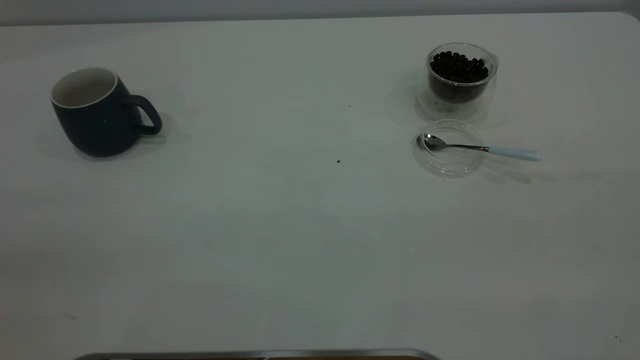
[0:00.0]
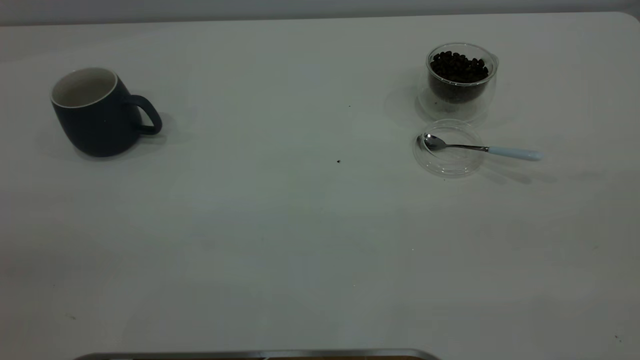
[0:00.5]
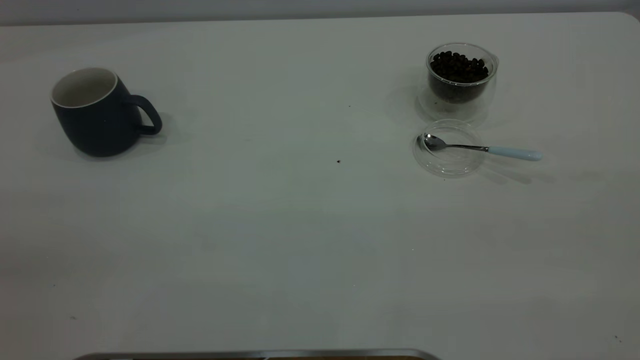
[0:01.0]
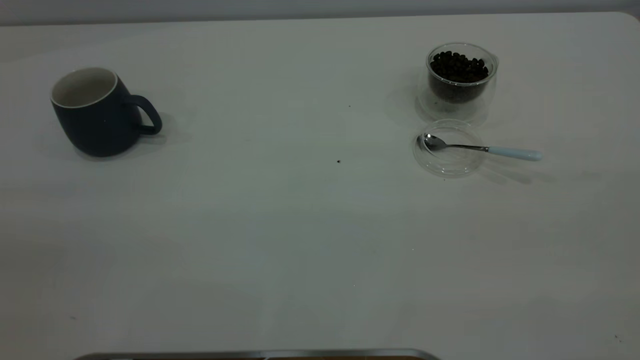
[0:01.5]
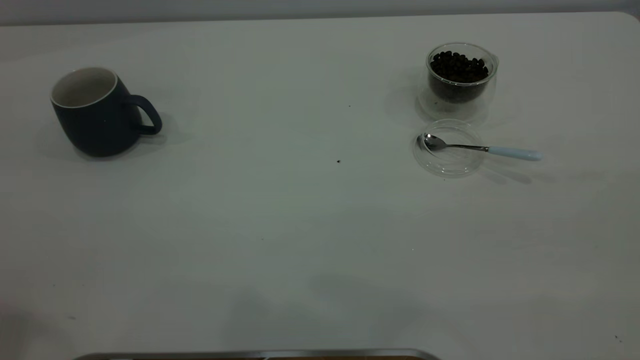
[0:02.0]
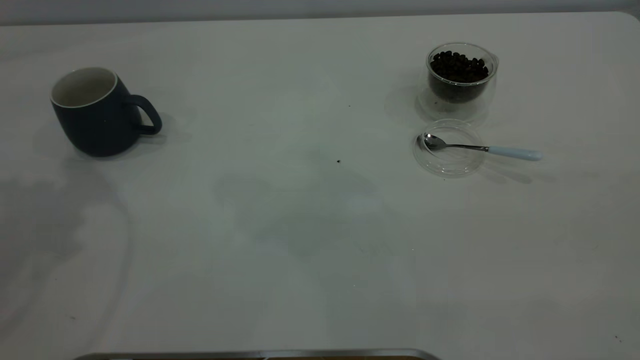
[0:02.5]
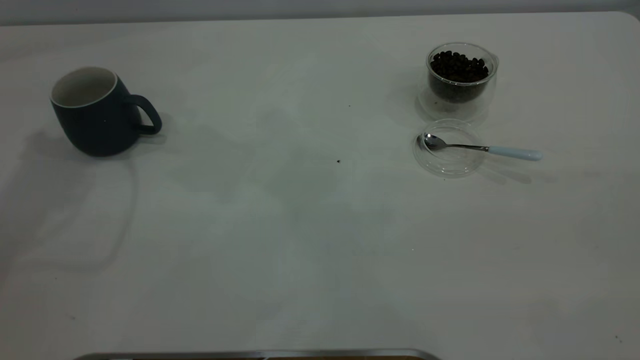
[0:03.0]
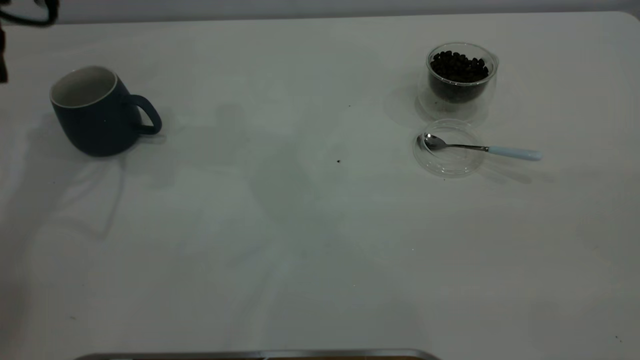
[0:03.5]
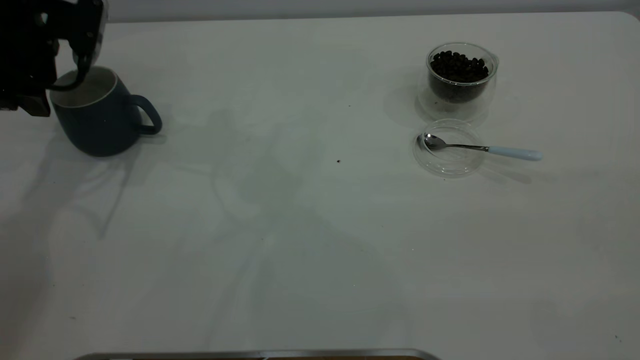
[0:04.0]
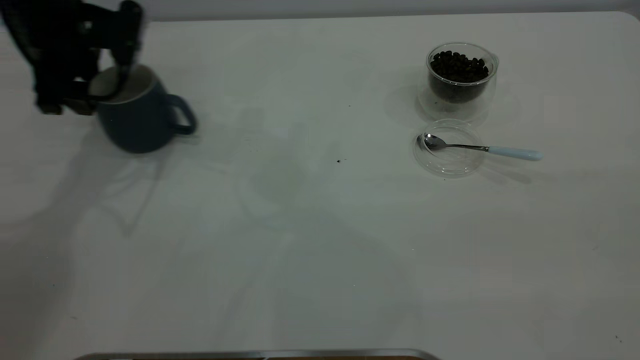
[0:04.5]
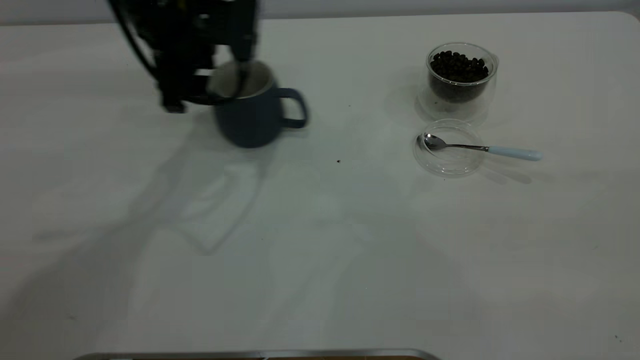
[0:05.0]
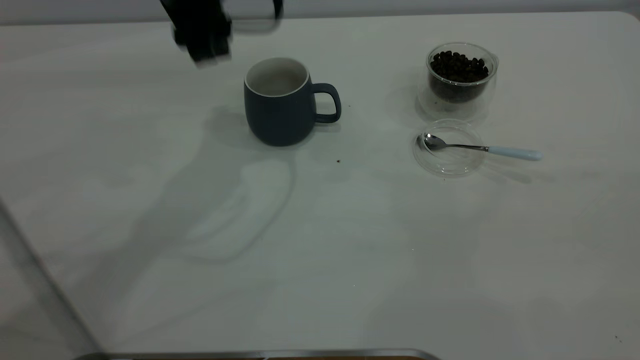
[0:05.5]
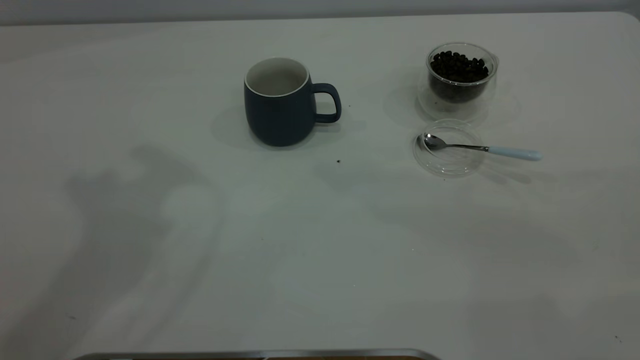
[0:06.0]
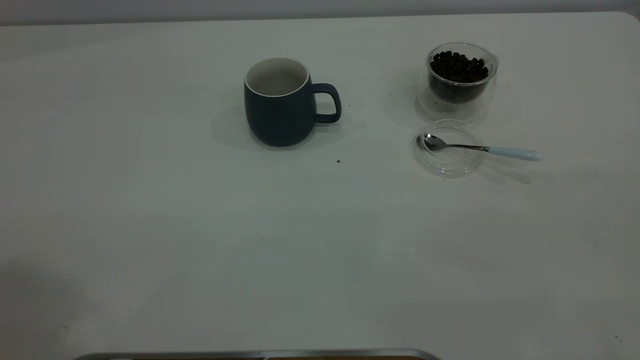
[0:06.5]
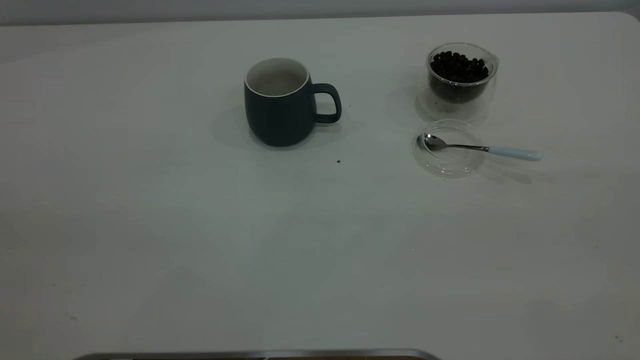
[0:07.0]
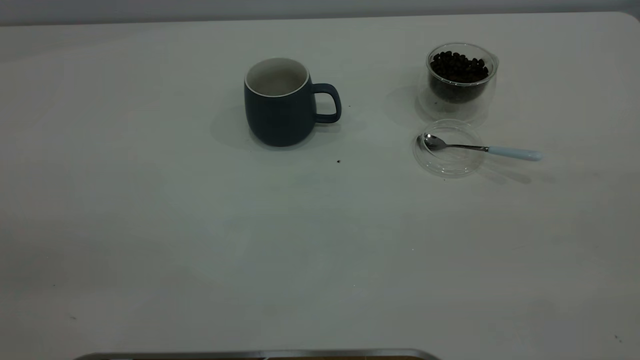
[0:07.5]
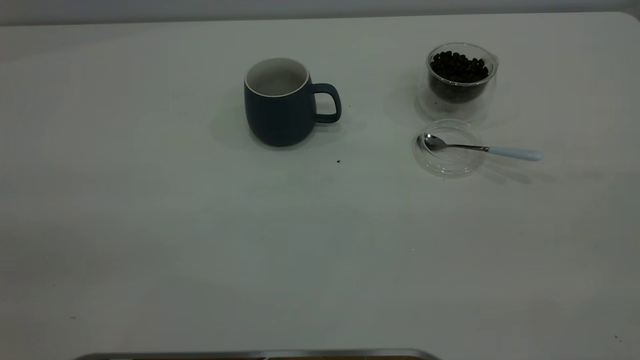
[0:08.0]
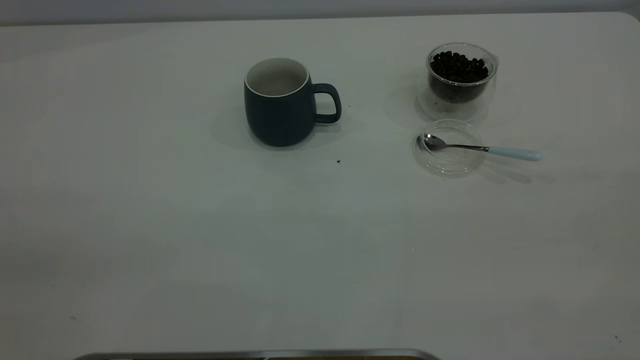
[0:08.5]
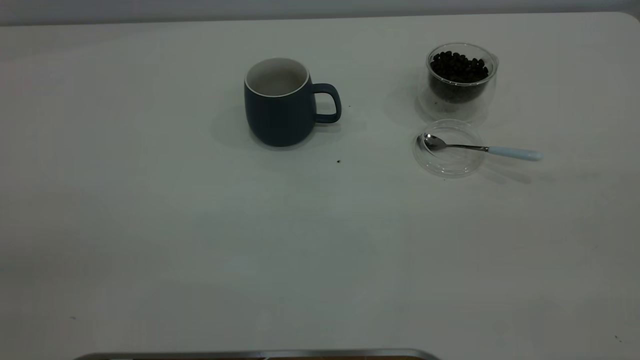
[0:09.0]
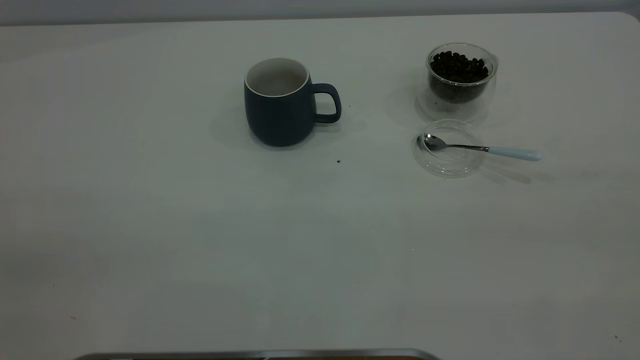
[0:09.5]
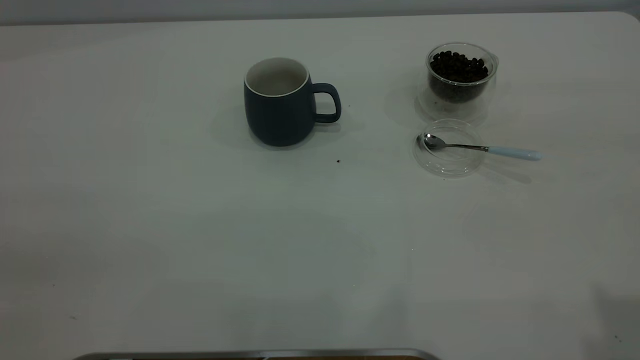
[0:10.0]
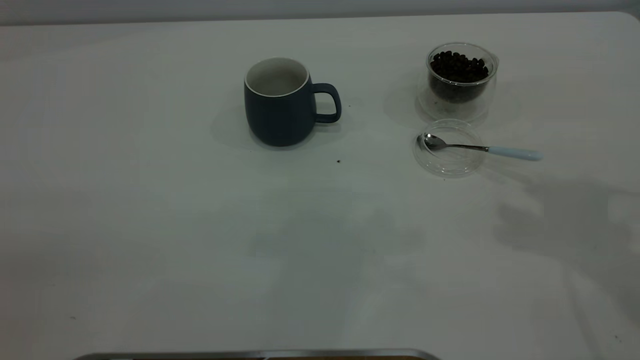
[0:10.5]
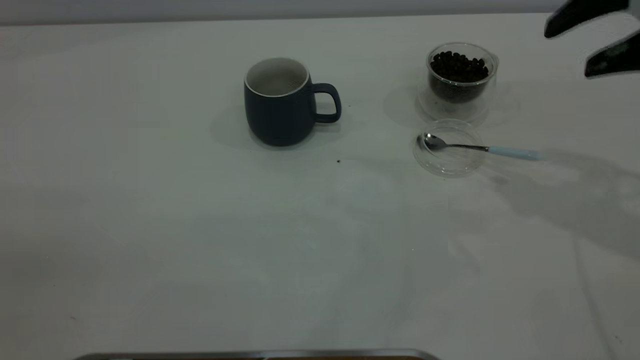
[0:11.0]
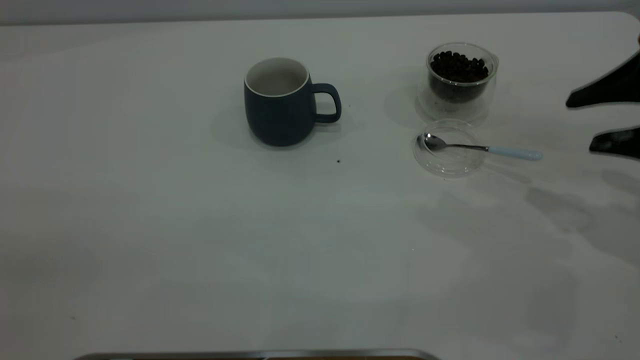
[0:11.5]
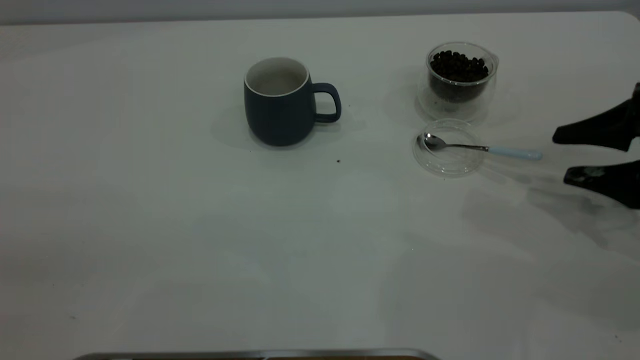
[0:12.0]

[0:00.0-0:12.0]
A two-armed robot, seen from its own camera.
Task of the whole recording: the left gripper place the grey cup in the center of the table, the right gripper take the blue spoon from the cup lid and scoop out the coffee beans from the coffee cup and put them into the grey cup, the right gripper put the spoon back into the cup lid.
Step, 0:00.0 to 0:05.0: Move the cup to the center of view.
0:02.0 to 0:04.0: The left gripper goes roughly 40 cm forward and downward.
0:04.0 to 0:06.0: The left gripper moves upward, backward and to the right, about 35 cm.
0:10.0 to 0:12.0: The right gripper moves downward and forward, roughly 35 cm.

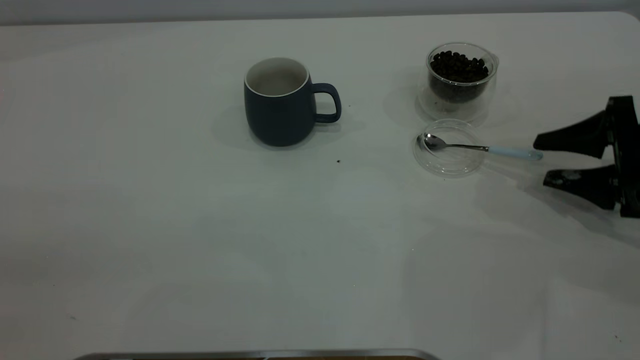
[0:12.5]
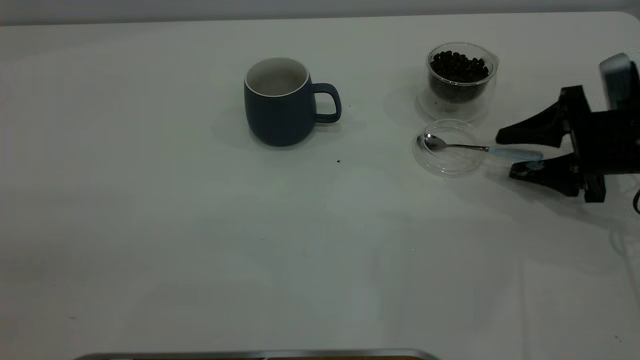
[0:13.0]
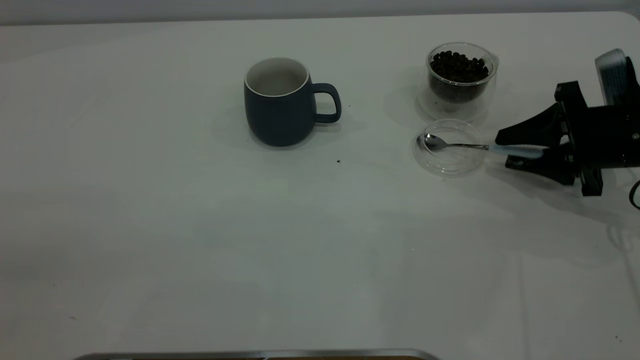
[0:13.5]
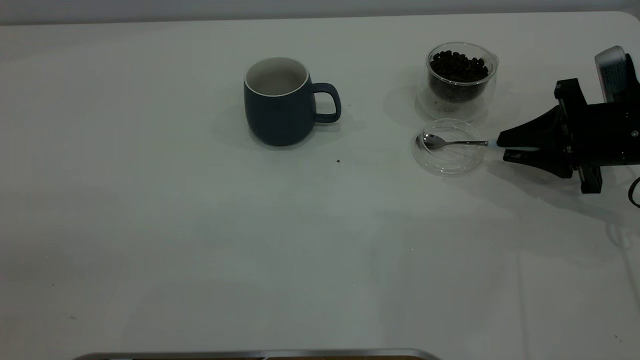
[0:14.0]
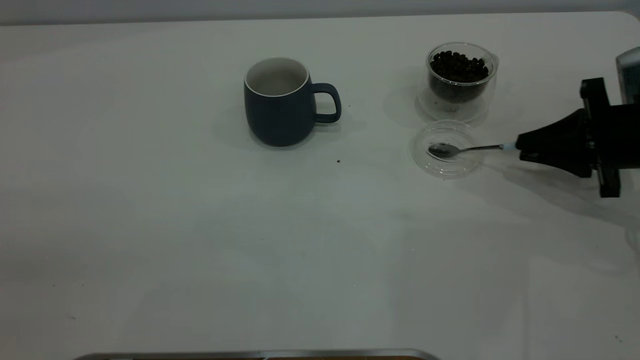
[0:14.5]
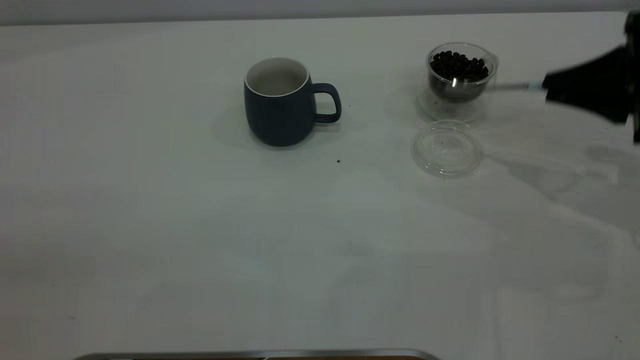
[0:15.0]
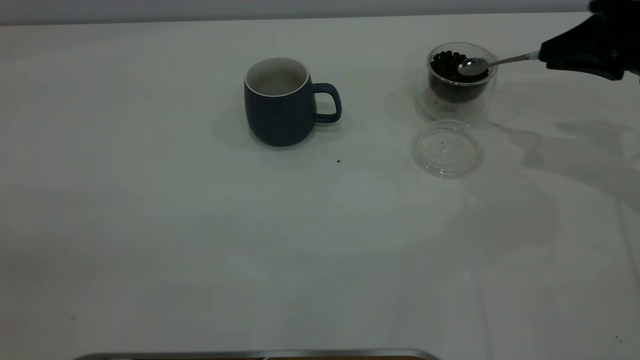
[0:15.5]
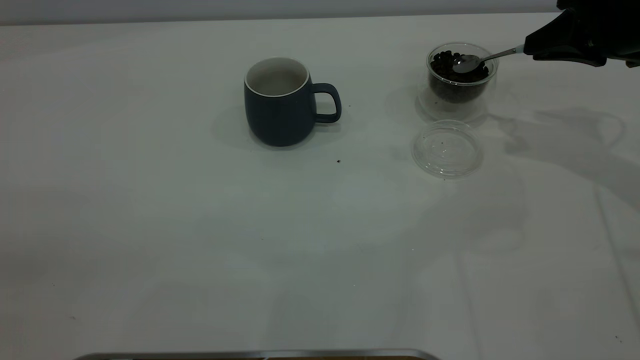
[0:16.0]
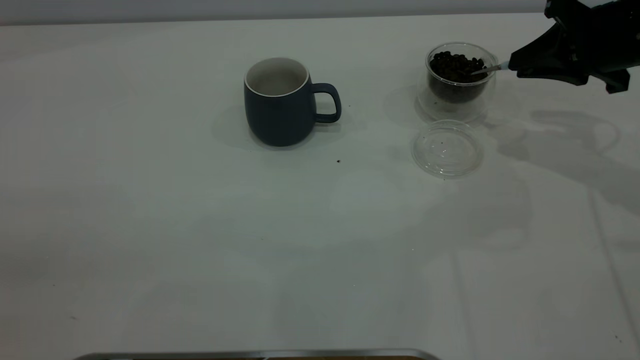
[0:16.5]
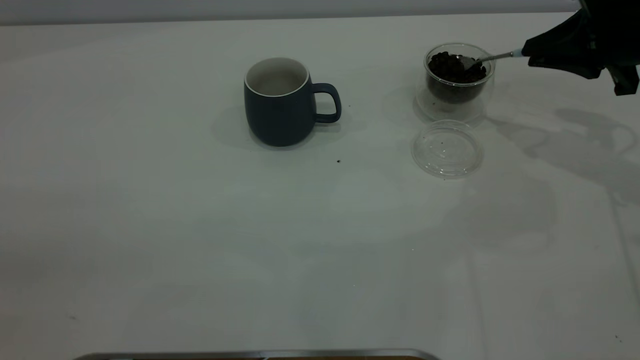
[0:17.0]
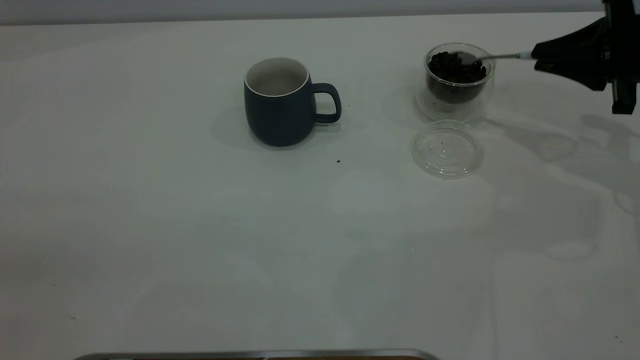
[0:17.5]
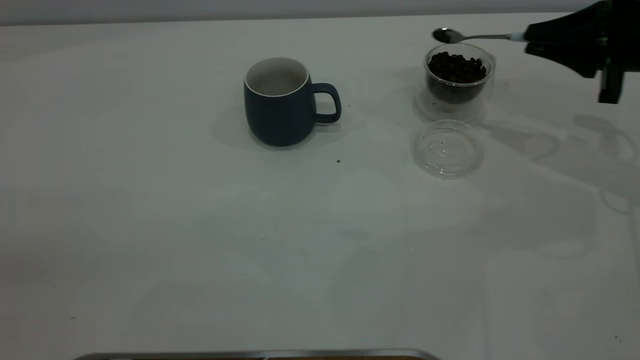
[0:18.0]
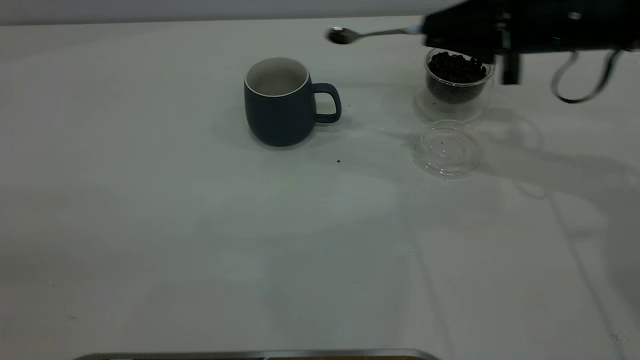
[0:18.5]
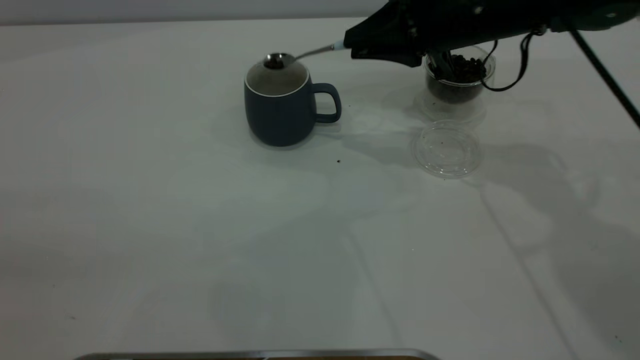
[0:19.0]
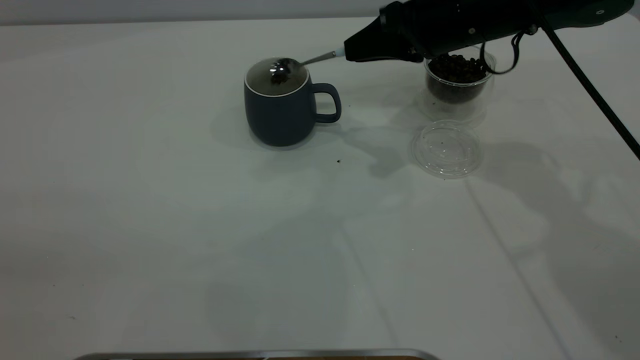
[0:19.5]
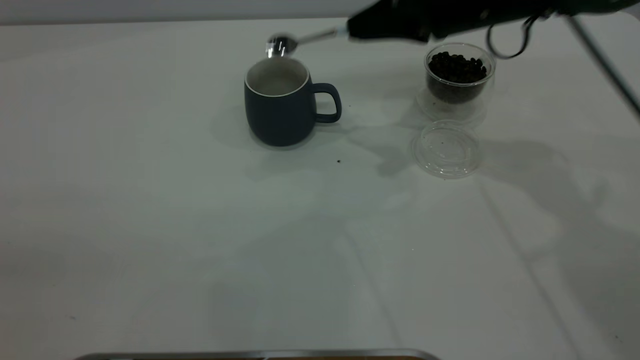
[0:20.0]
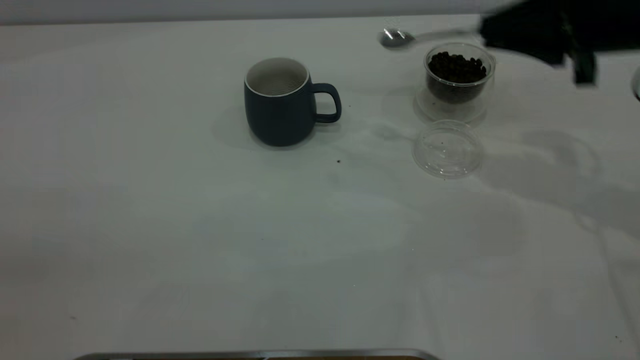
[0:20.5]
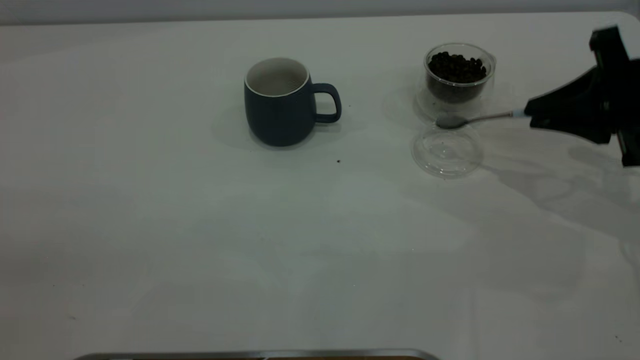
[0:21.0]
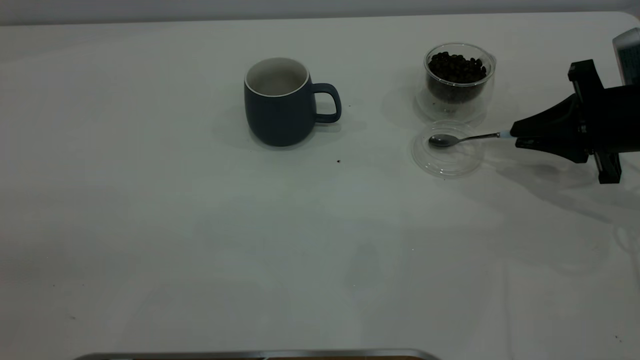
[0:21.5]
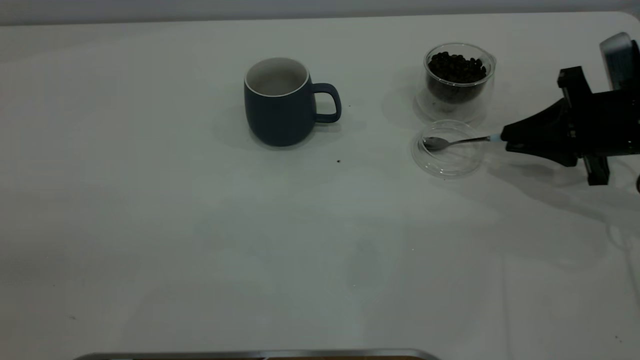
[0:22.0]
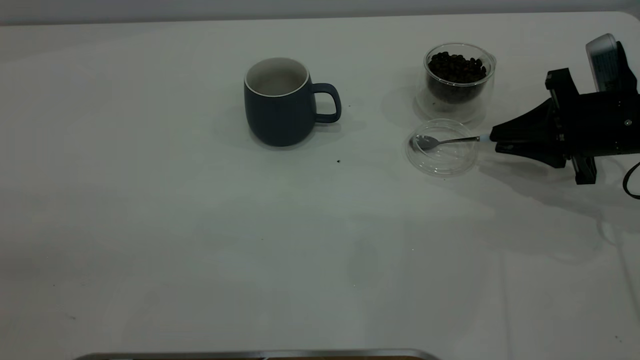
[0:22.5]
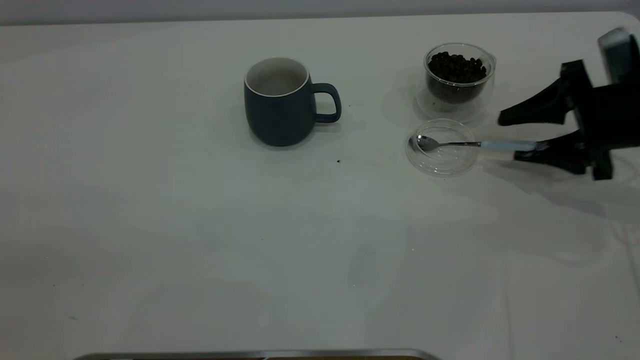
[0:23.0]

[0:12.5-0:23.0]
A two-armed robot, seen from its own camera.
Task of the whole recording: the left gripper place the grey cup in the center of the table, the right gripper take the blue spoon from the cup lid and scoop out the coffee beans from the coffee cup and put them into the grey cup, the right gripper put the spoon back into the cup lid.
Step, 0:12.5 to 0:14.5: Pick up the spoon.
Step, 0:15.0 to 0:20.0: Scoop a spoonful of beans into the cup.
0:12.5 to 0:14.5: The right gripper closes.
0:14.5 to 0:16.5: The right gripper heads upward and forward, covering some 10 cm.
0:16.5 to 0:19.0: The right gripper travels to the left by roughly 15 cm.
0:19.0 to 0:21.0: The right gripper moves to the right and backward, some 20 cm.
0:21.0 to 0:23.0: The right gripper opens up.
